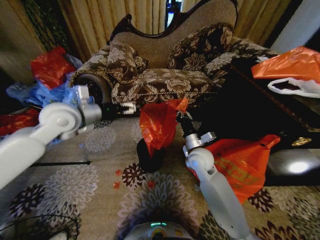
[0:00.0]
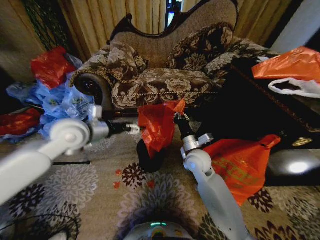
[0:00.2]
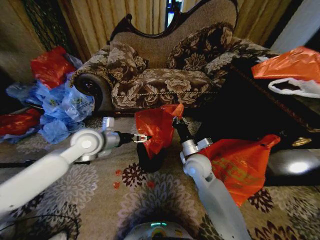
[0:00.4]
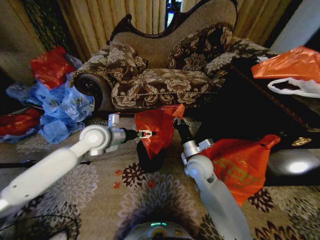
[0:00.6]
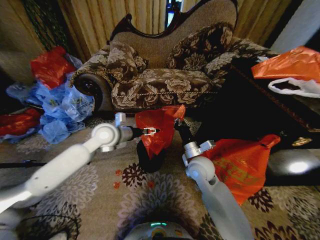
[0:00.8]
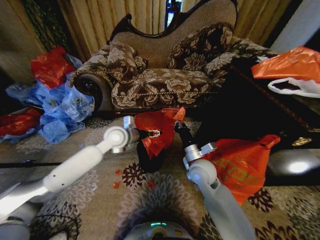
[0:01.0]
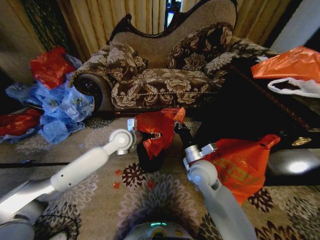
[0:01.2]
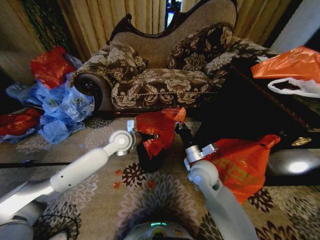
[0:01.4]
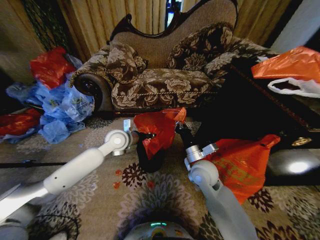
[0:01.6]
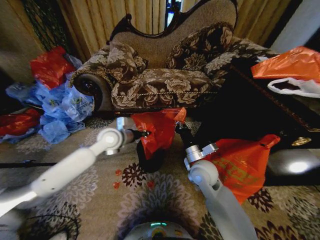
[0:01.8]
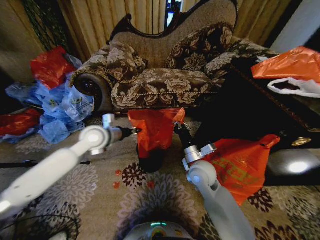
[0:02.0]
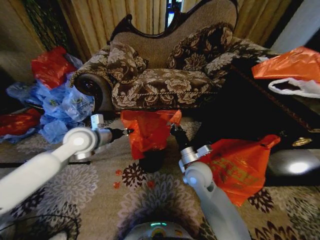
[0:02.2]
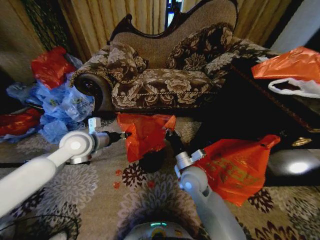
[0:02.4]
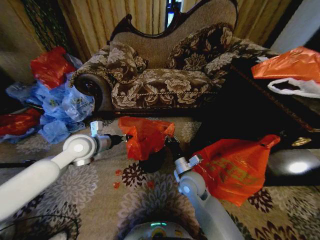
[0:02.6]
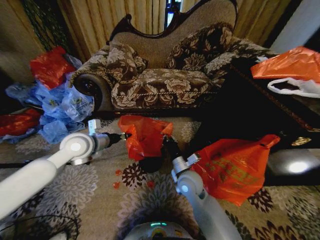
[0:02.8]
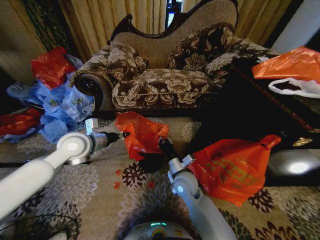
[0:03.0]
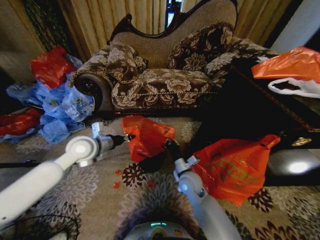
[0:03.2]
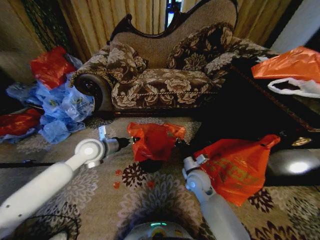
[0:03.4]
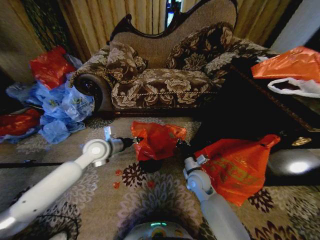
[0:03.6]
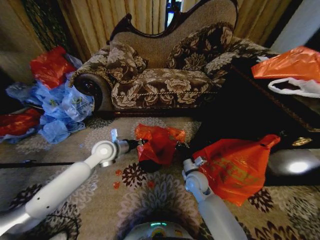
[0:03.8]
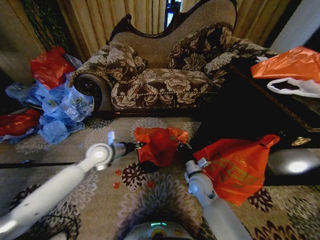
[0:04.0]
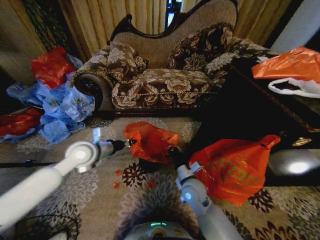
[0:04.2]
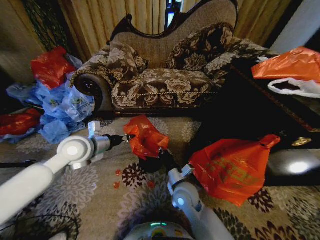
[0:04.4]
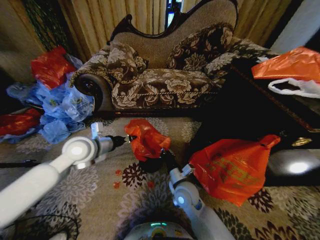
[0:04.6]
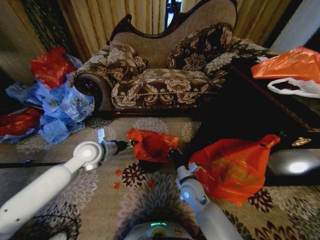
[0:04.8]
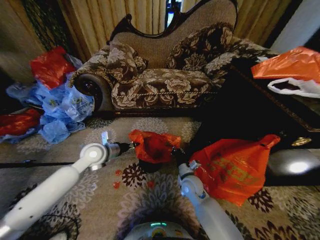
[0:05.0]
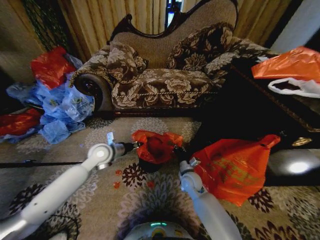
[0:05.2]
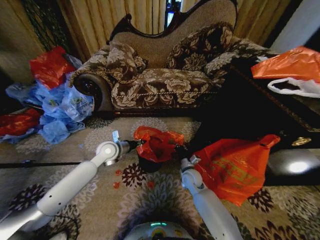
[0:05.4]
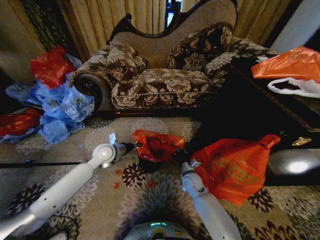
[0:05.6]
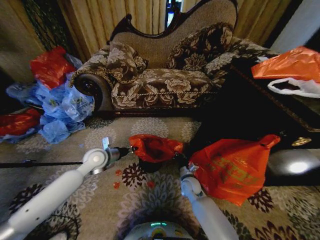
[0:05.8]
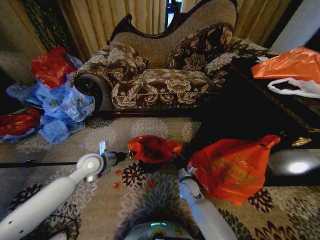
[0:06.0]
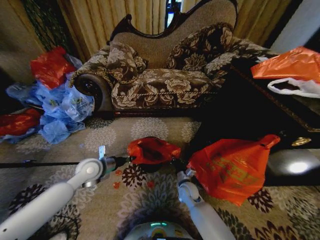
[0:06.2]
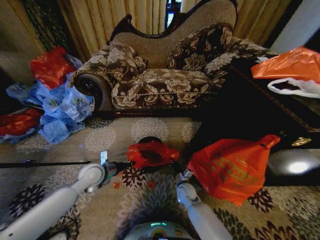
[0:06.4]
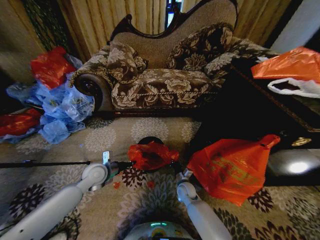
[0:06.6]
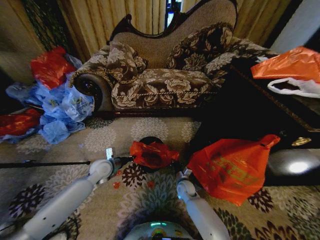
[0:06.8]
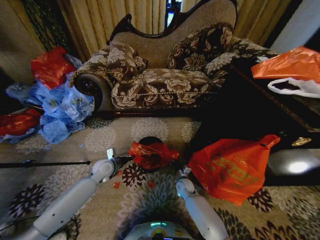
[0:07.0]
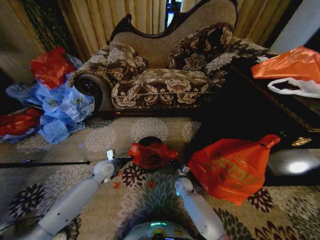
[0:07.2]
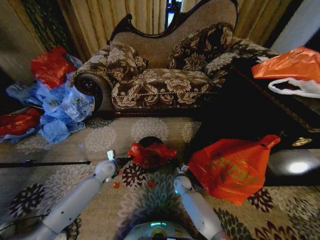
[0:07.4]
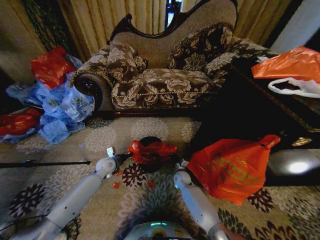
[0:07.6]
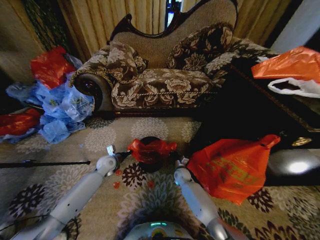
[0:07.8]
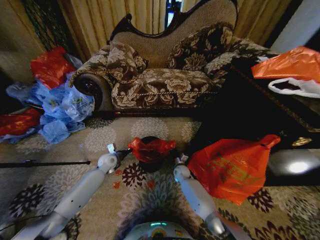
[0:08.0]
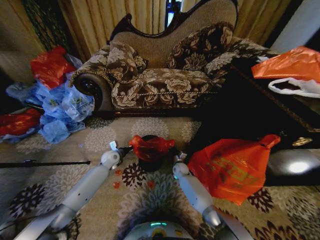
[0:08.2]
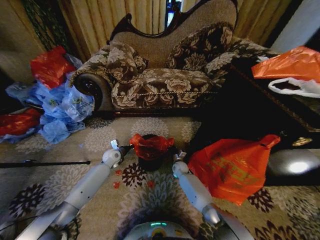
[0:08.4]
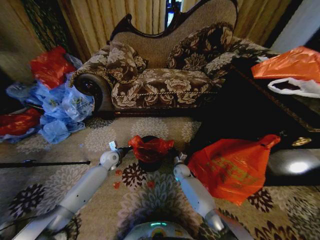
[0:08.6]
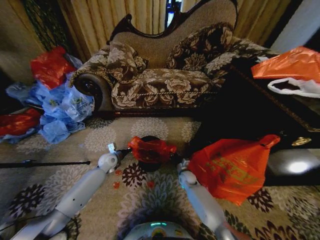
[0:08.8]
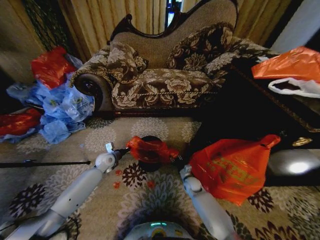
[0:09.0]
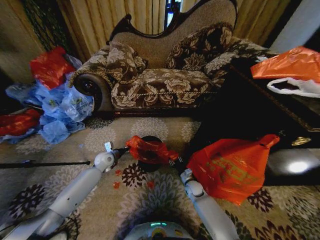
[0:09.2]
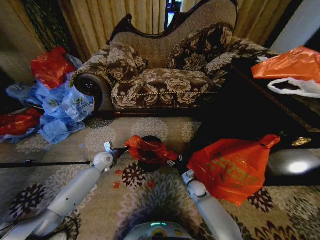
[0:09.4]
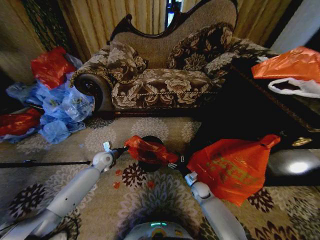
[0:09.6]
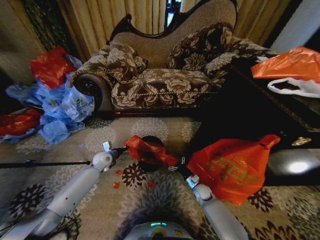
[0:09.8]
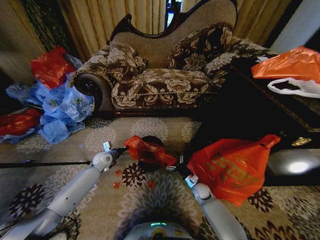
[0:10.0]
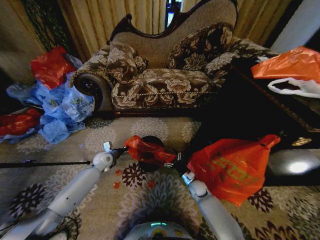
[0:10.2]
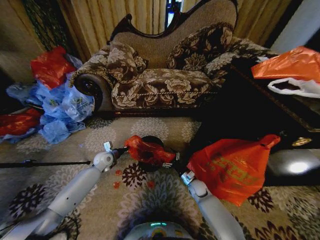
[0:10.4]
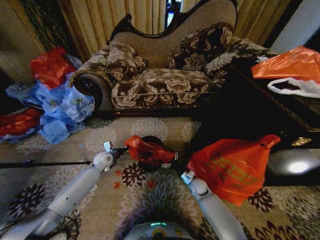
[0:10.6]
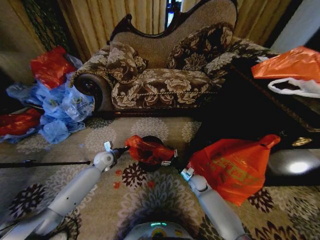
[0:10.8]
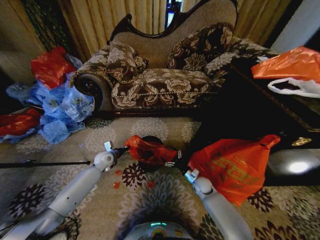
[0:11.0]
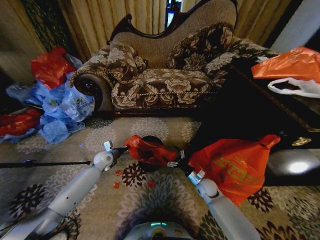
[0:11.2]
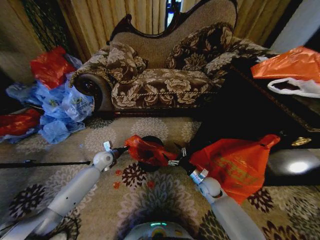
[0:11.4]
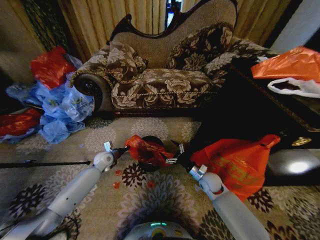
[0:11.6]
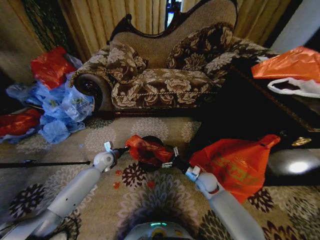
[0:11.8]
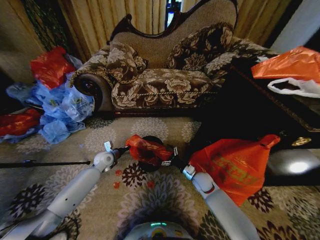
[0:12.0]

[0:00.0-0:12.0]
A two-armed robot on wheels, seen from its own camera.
Task of the whole recording: Place a garbage bag over the trash bin.
0:00.0 to 0:01.6: The left gripper moves downward and to the right, some 20 cm, and closes its fingers. Meanwhile the right gripper ends up some 5 cm from where it was.
0:01.6 to 0:03.0: The right gripper travels to the left and downward by about 10 cm, while the left gripper is displaced to the left and backward by roughly 15 cm, and closes.
0:03.0 to 0:04.4: The left gripper moves some 10 cm downward and comes back.
0:04.4 to 0:06.0: The right gripper moves downward, forward and to the right, roughly 15 cm. The left gripper moves downward, some 10 cm.
0:06.0 to 0:07.6: The left gripper is displaced downward and forward by approximately 15 cm; the right gripper shifts about 10 cm forward and downward.
0:07.6 to 0:09.0: The right gripper goes roughly 5 cm to the right, and goes forward and returns, roughly 5 cm each way.
0:09.0 to 0:10.4: The right gripper opens.
0:10.4 to 0:12.0: The right gripper travels upward by about 10 cm.

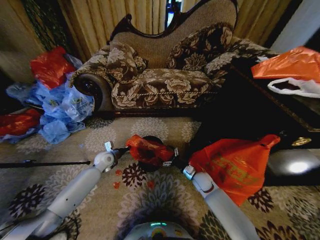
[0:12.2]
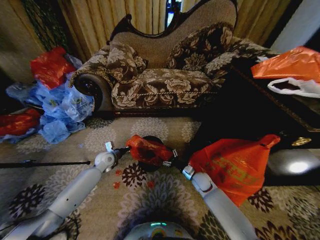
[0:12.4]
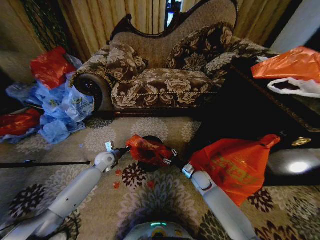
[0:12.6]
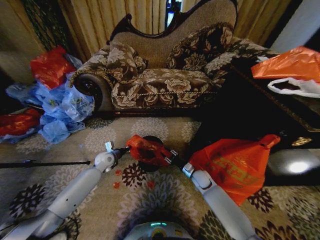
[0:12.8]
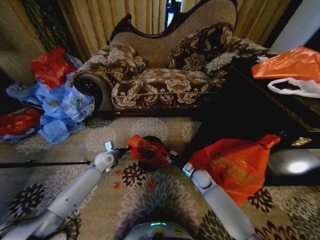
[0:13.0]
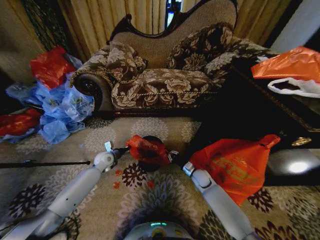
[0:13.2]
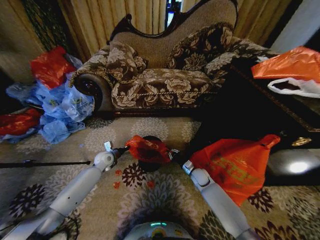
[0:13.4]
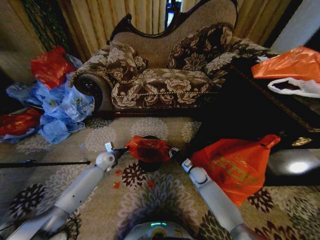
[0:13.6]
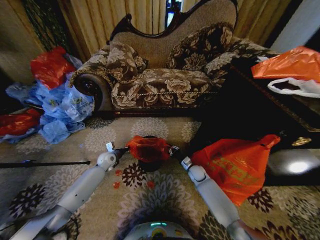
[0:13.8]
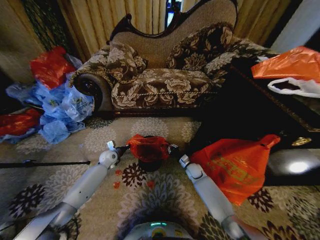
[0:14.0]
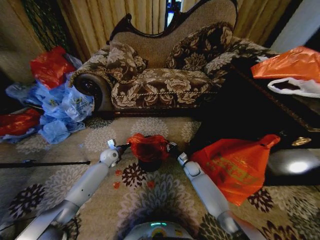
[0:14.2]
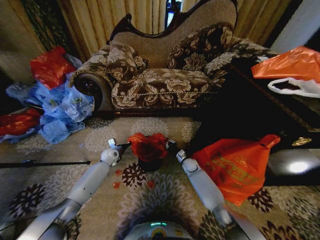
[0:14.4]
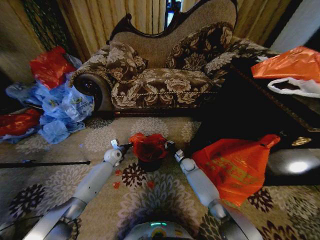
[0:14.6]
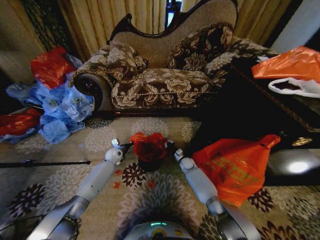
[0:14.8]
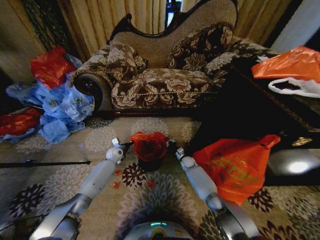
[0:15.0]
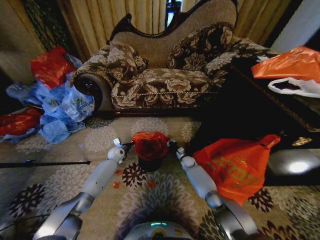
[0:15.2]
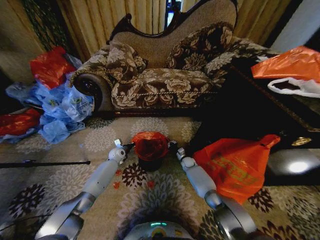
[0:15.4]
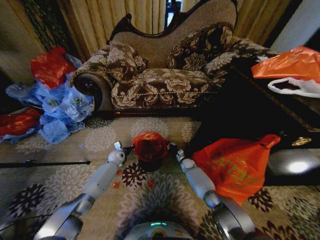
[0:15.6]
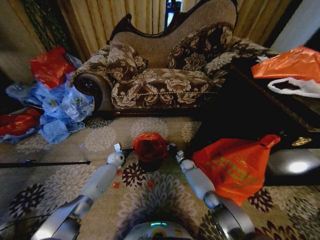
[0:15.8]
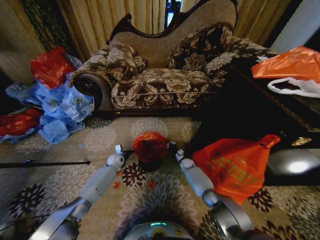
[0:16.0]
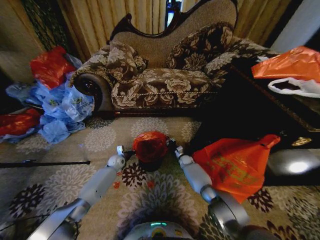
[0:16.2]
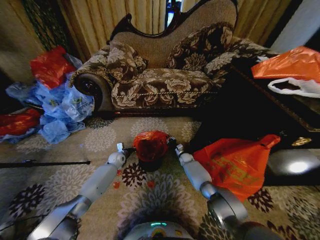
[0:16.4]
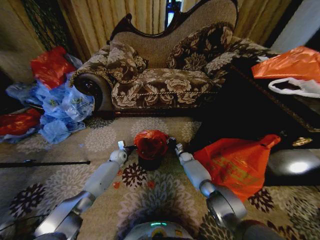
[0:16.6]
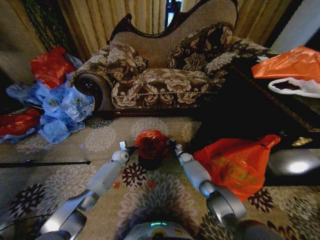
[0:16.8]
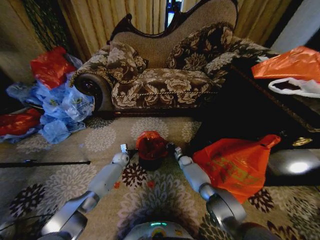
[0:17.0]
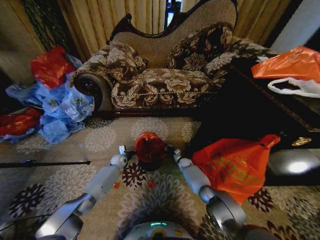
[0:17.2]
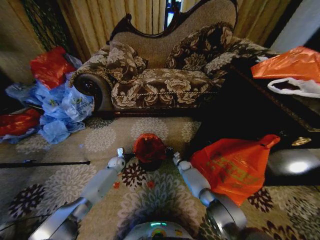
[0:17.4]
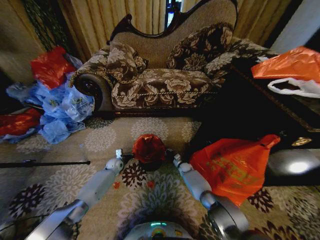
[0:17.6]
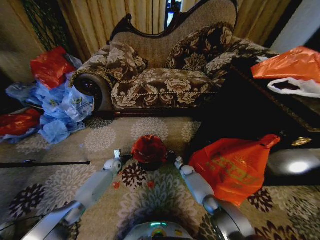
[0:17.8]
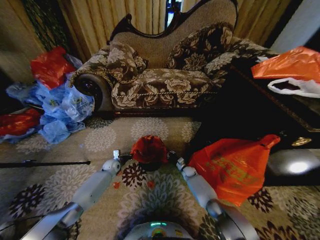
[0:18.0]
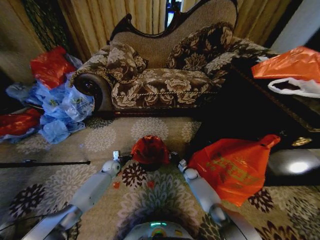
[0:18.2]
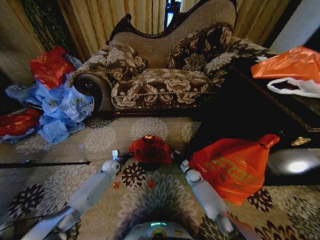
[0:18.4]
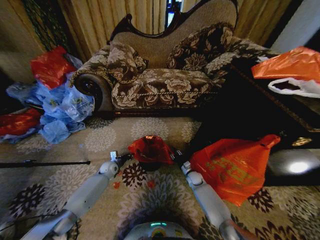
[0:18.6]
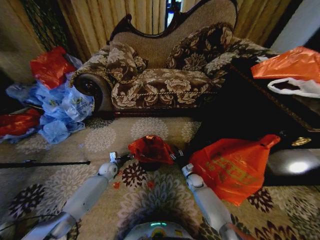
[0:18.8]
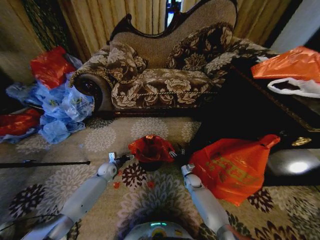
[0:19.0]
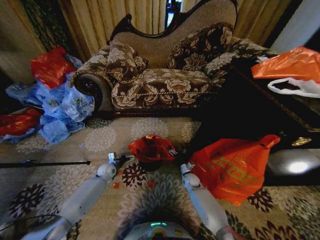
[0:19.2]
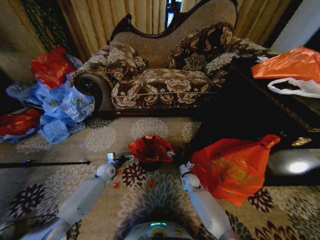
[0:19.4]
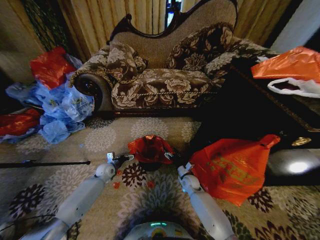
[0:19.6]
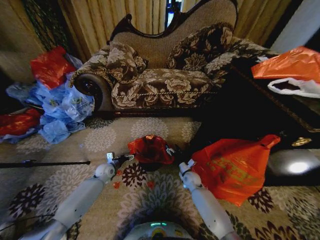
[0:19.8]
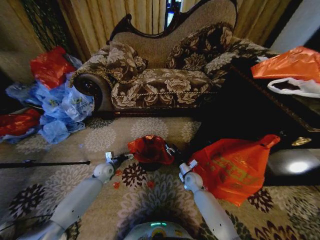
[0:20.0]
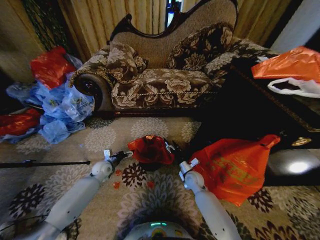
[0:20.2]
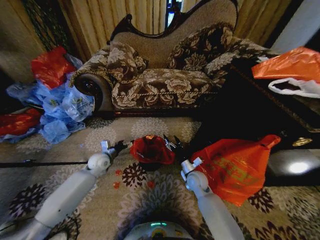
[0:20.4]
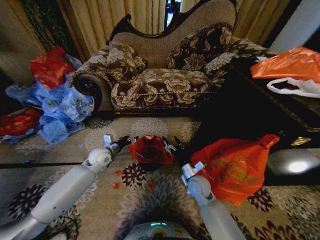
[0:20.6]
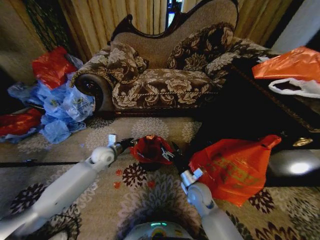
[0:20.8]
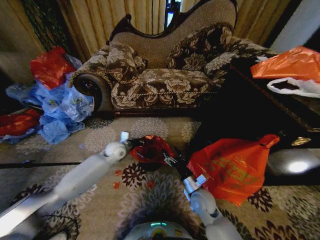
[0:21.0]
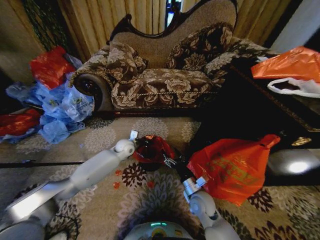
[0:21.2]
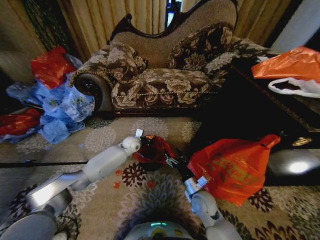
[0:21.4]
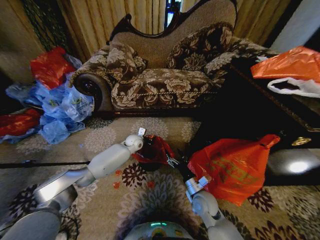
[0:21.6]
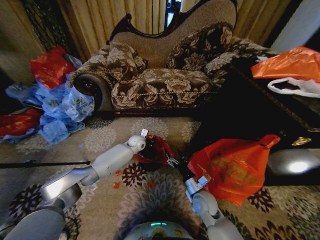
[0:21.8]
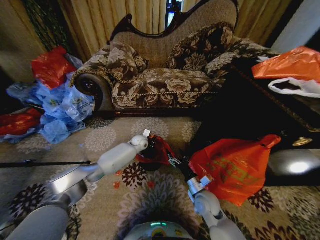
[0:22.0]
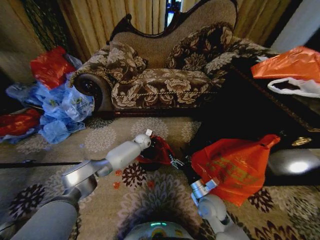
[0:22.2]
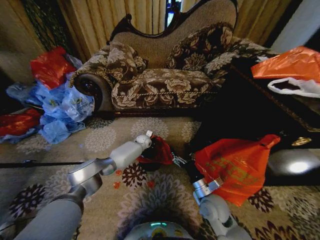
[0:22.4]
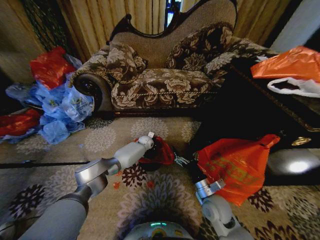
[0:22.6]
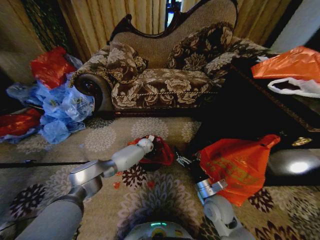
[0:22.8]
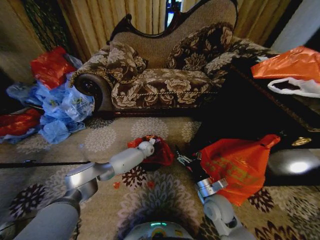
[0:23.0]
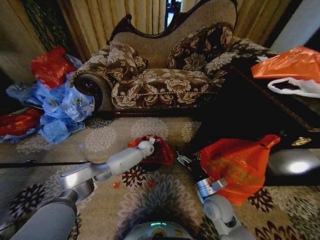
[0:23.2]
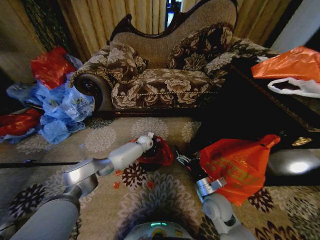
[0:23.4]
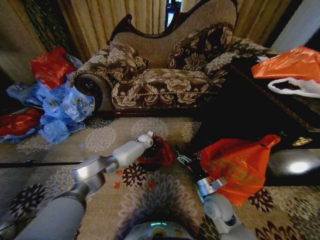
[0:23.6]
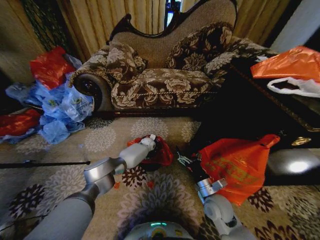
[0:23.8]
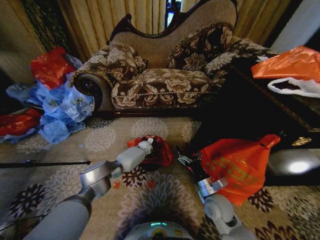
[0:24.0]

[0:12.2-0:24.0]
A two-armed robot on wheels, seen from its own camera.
Task of the whole recording: Place a garbage bag over the trash bin.
0:12.2 to 0:13.6: The right gripper moves roughly 5 cm, and closes its fingers.
0:13.6 to 0:15.2: The right gripper moves forward, approximately 10 cm. The left gripper goes roughly 5 cm forward.
0:15.2 to 0:16.6: The grippers stay close to where they were, moving slightly.
0:16.6 to 0:18.2: The left gripper moves backward, some 5 cm. Meanwhile the right gripper travels backward and downward by about 10 cm.
0:18.2 to 0:19.6: The left gripper opens, while the right gripper goes approximately 10 cm backward and upward, and opens up.
0:19.6 to 0:21.0: The left gripper heads upward and to the right, covering about 15 cm, and closes. The right gripper is displaced backward and upward by some 15 cm.
0:21.0 to 0:22.6: The right gripper moves approximately 5 cm. Meanwhile the left gripper is displaced forward, to the right and downward by some 20 cm.
0:22.6 to 0:24.0: The grippers stay close to where they were, moving slightly.
